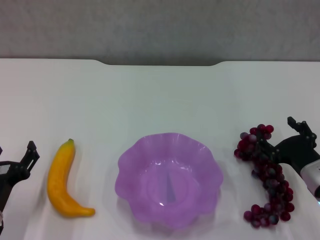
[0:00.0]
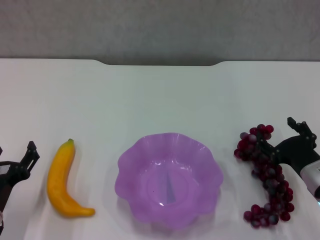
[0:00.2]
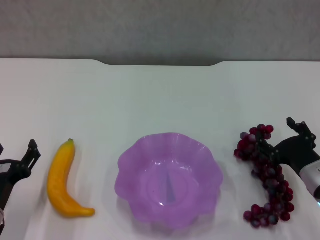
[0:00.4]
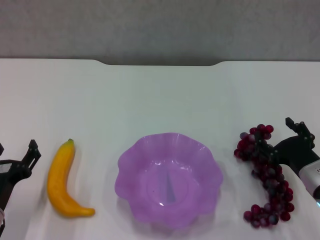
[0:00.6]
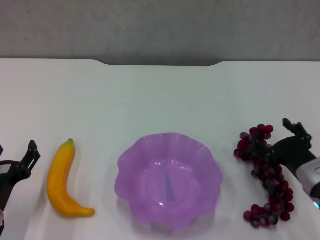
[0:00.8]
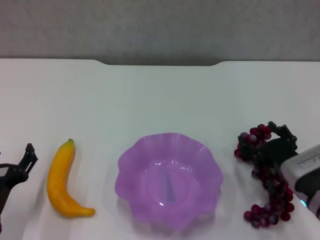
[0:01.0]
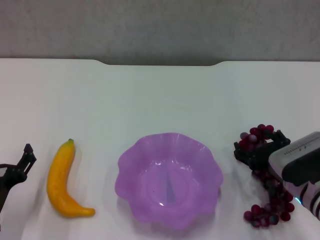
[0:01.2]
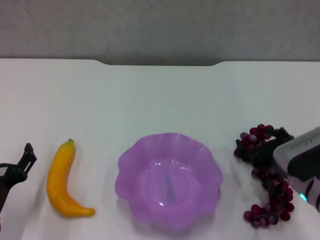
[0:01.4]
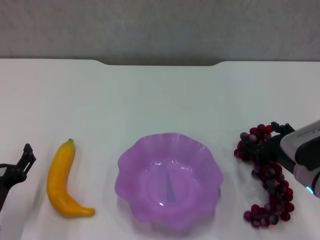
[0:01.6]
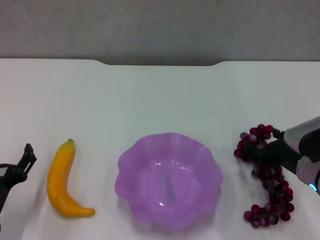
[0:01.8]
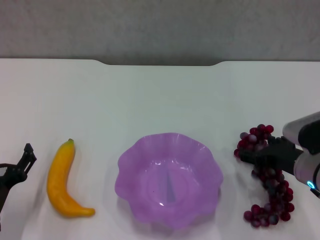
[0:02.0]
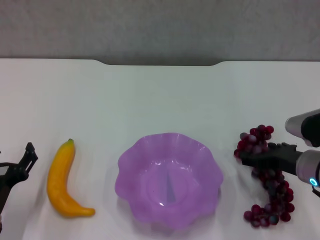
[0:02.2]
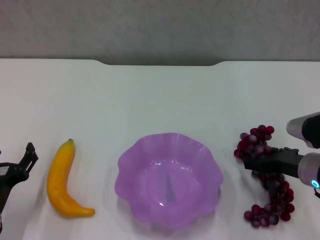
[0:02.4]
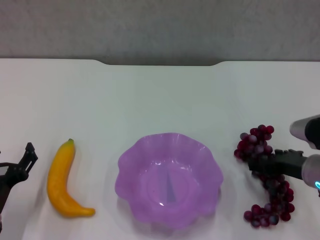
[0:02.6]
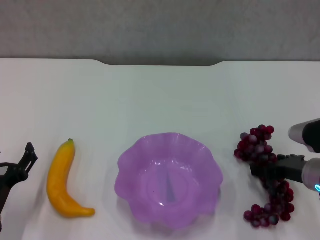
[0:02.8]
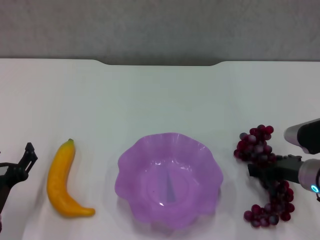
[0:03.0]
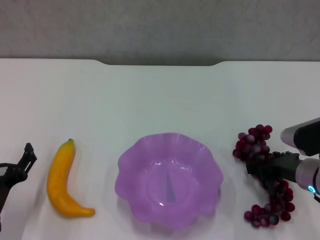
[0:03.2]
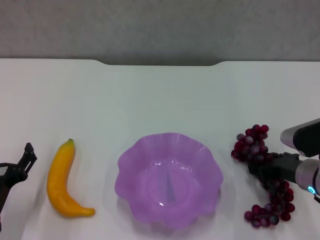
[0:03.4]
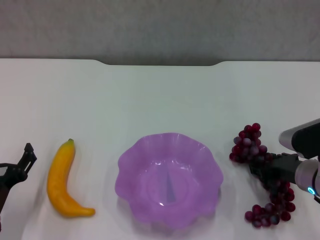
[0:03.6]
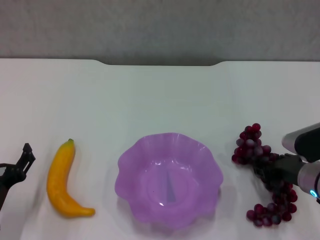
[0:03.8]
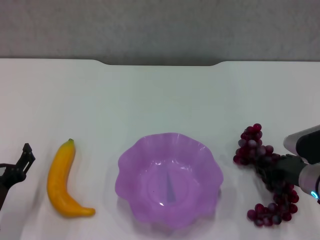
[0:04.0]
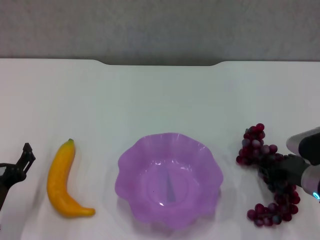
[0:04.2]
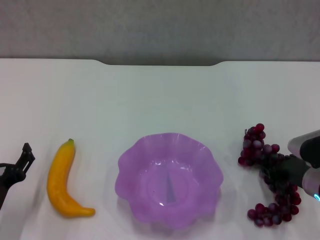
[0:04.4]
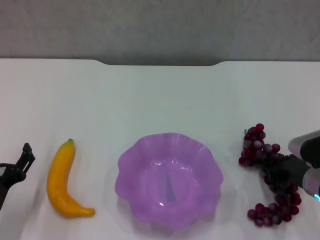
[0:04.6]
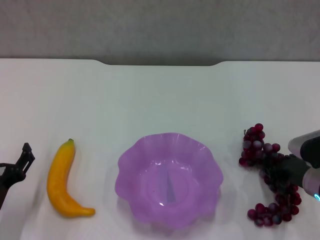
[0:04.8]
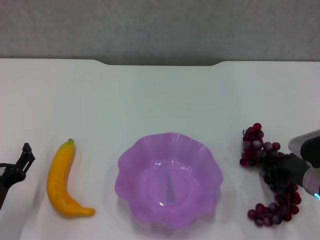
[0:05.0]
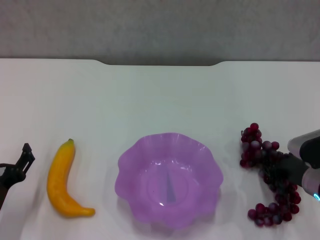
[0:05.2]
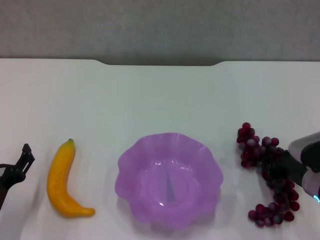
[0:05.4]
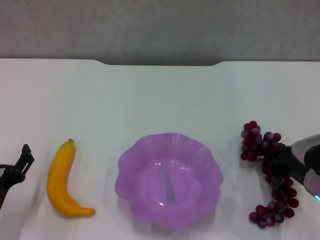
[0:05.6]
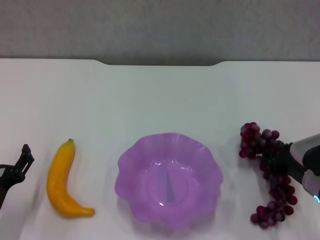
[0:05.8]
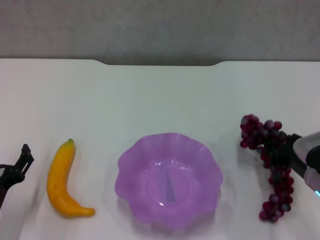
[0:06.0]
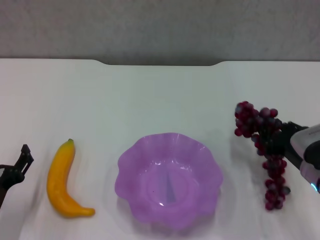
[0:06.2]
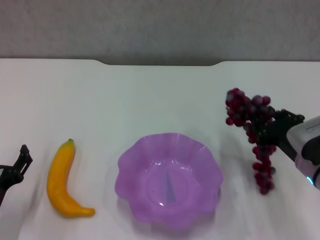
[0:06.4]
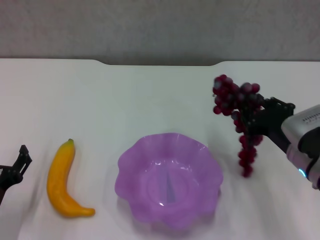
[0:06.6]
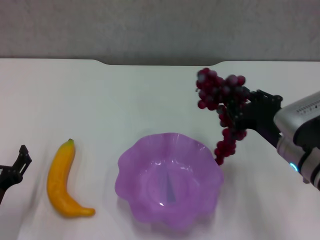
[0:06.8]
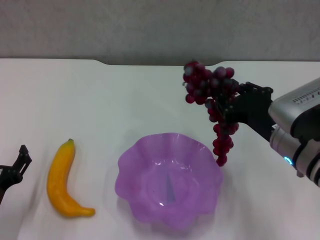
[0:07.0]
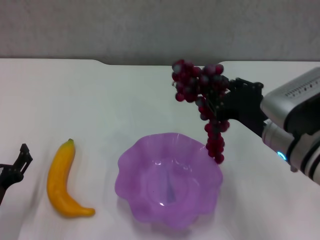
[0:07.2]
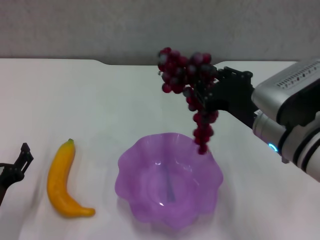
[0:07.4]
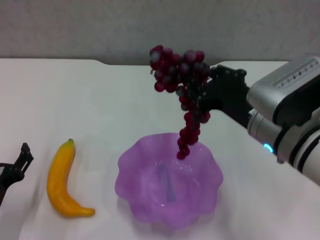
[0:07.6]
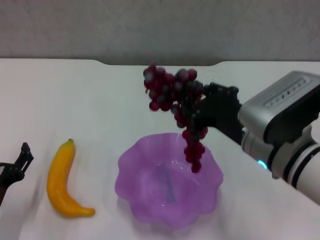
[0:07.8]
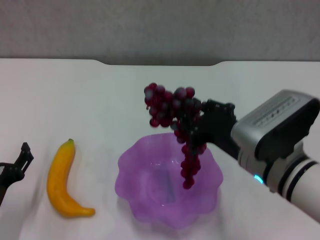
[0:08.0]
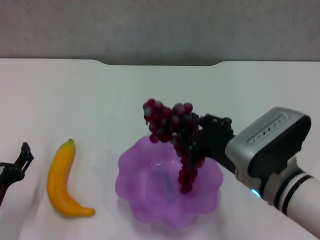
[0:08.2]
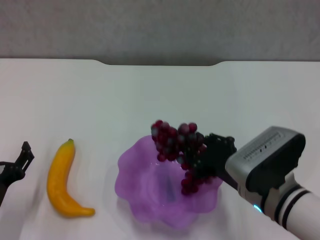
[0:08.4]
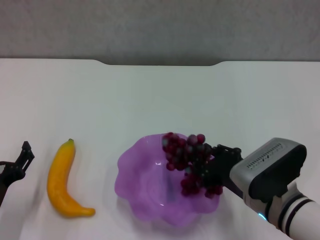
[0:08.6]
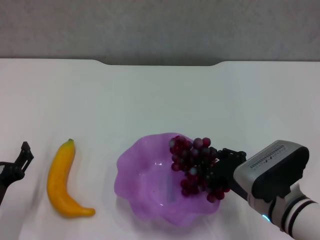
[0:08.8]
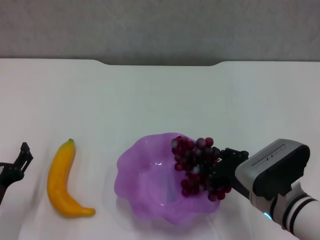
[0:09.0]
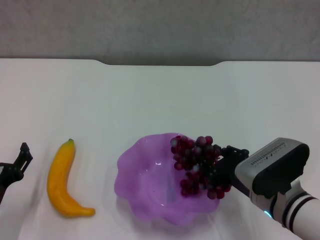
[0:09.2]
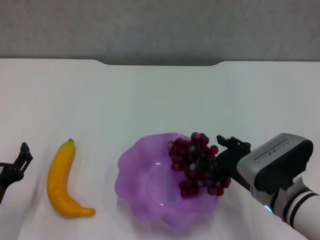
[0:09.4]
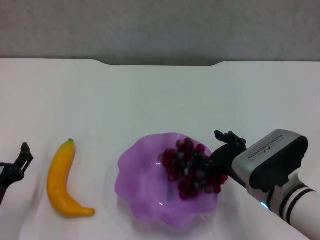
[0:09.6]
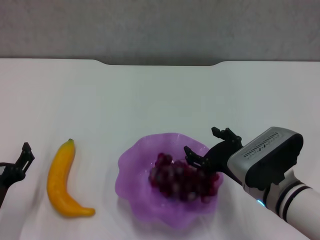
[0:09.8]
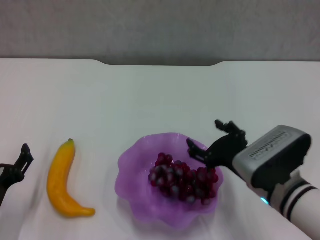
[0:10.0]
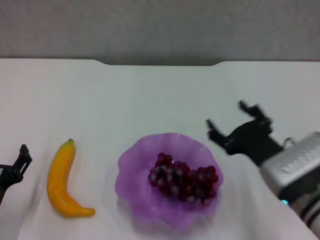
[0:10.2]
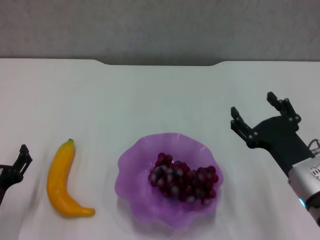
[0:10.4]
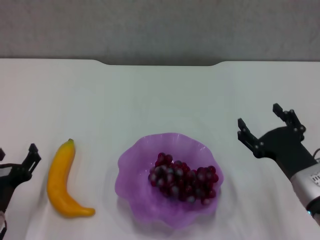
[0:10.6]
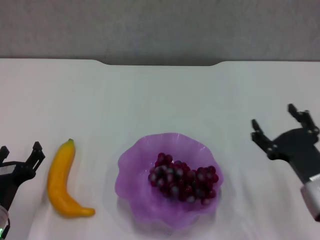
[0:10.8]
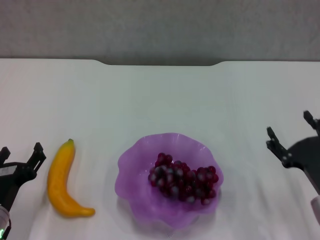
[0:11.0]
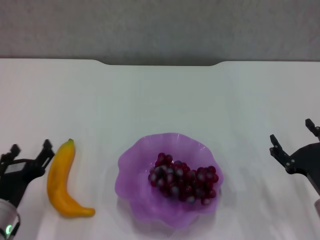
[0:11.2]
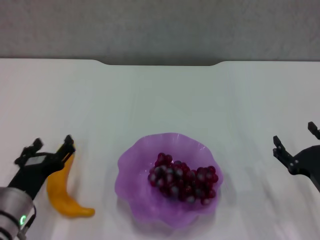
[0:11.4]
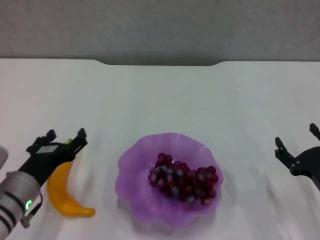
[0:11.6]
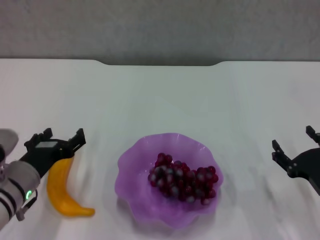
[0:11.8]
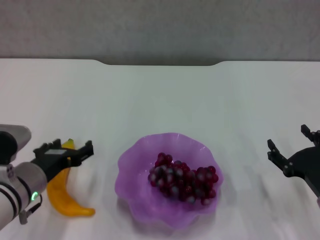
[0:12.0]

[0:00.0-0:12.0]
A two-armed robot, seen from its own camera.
Step, 0:00.0 to 0:03.6: Grasp the grape with right gripper.
Step, 0:04.0 to 0:10.0: Place the grape in the purple plate with right gripper.
0:00.0 to 0:01.6: The right gripper moves roughly 5 cm.
0:03.0 to 0:04.4: The right gripper closes up.
0:04.4 to 0:06.0: There are only small adjustments of the grippers.
0:06.0 to 0:07.6: The right gripper heads upward and to the left, covering about 15 cm.
0:07.6 to 0:09.0: The right gripper heads downward, covering roughly 10 cm.
0:09.0 to 0:10.4: The right gripper opens up.
0:10.4 to 0:12.0: The right gripper travels to the right and downward by approximately 10 cm. The left gripper moves to the right, upward and forward, some 10 cm.

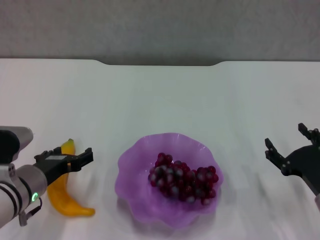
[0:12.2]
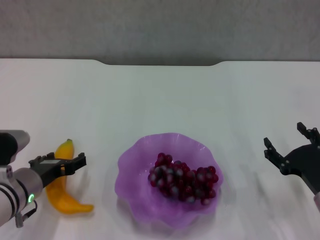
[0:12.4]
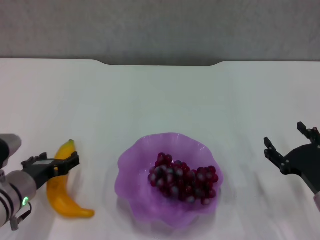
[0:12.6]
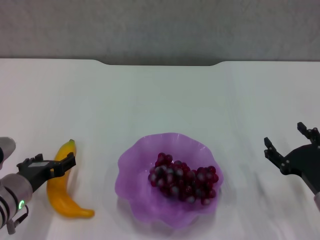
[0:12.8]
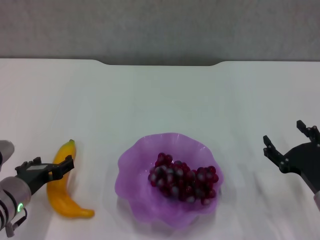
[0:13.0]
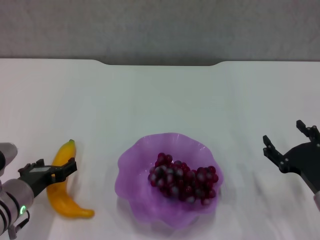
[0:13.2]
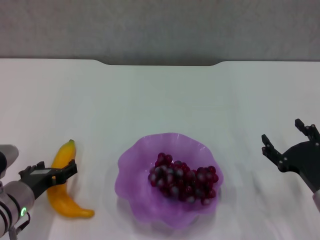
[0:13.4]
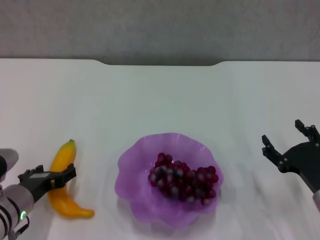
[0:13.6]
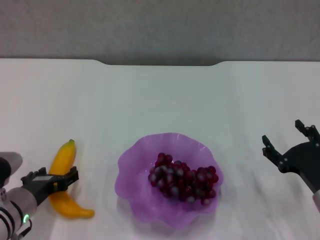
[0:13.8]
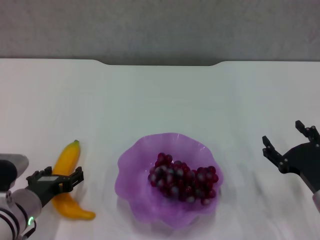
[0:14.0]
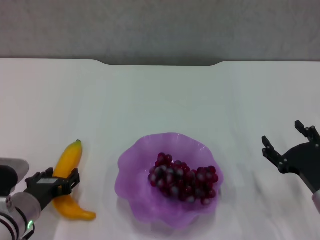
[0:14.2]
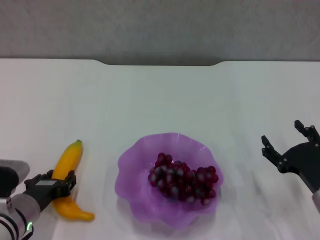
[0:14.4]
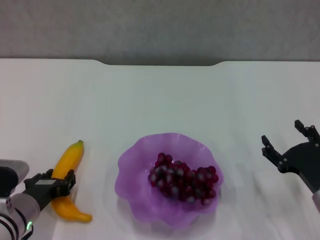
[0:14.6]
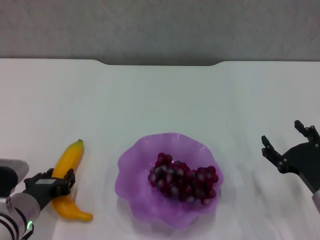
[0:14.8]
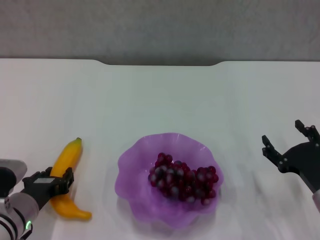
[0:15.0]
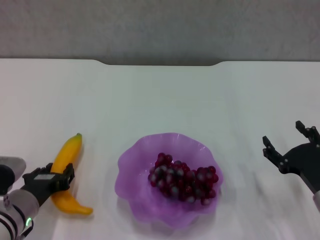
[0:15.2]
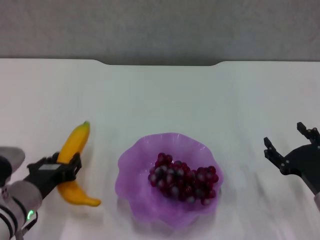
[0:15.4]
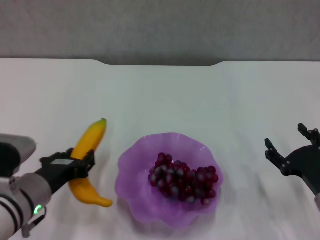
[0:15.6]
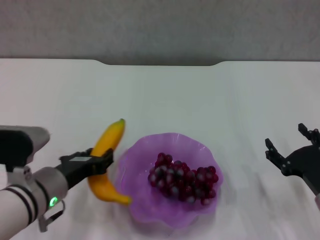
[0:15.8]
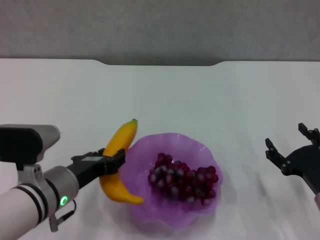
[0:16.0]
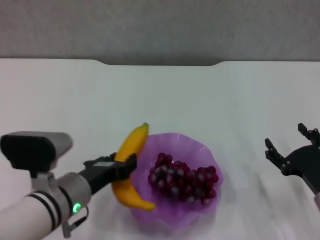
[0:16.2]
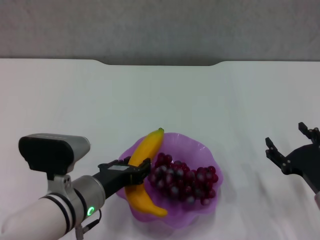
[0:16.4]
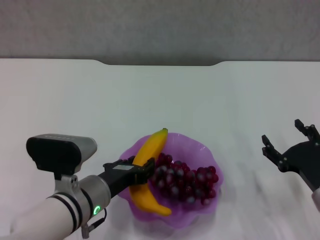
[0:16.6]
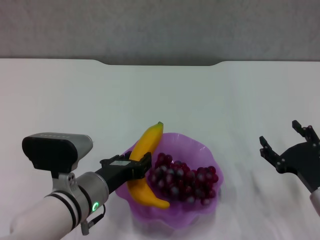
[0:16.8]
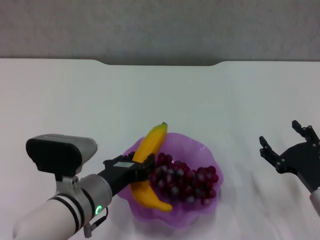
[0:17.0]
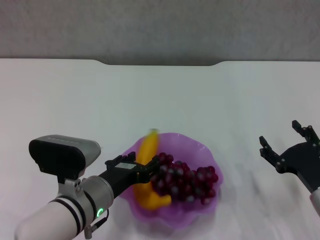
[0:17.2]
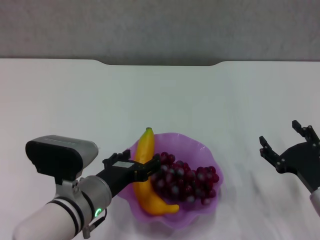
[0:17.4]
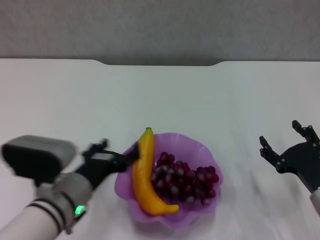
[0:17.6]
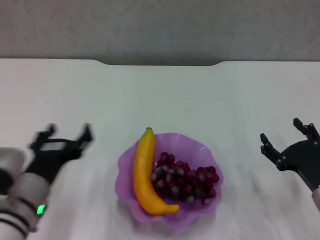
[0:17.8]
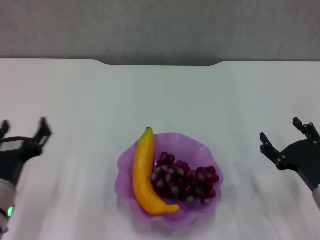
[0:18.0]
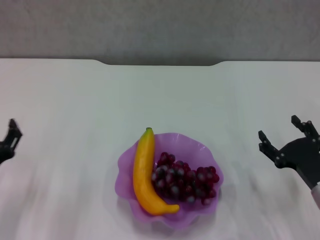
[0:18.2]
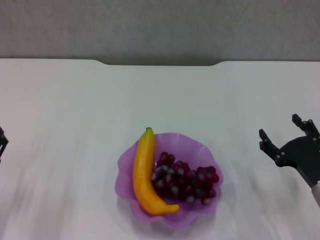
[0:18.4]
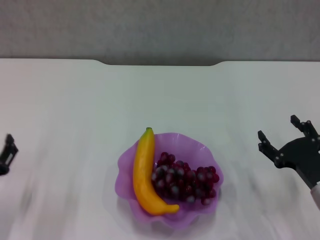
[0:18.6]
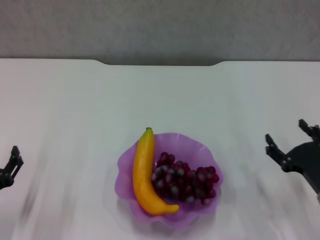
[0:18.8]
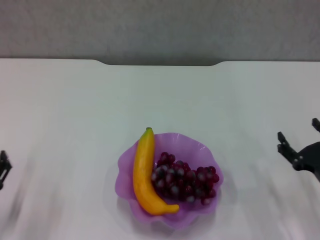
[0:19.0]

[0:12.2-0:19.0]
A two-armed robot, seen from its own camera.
Step, 0:12.2 to 0:14.6: Grasp the banana with left gripper.
Step, 0:14.8 to 0:17.6: Place the banana in the purple plate with left gripper.
0:12.2 to 0:13.6: The grippers move only a little.
0:13.6 to 0:15.0: The left gripper closes.
0:15.0 to 0:16.2: The left gripper is displaced to the right and upward by about 10 cm.
0:16.2 to 0:17.6: The left gripper opens.
0:17.6 to 0:19.0: The left gripper goes roughly 15 cm to the left.
